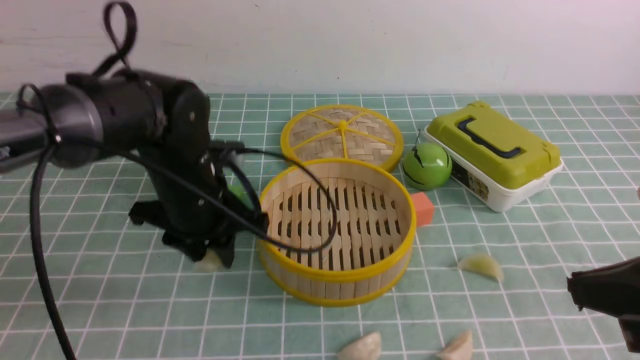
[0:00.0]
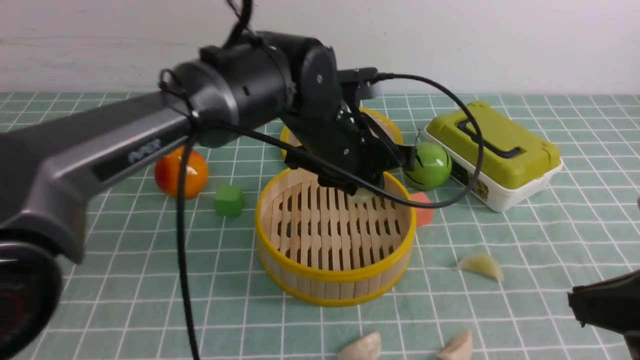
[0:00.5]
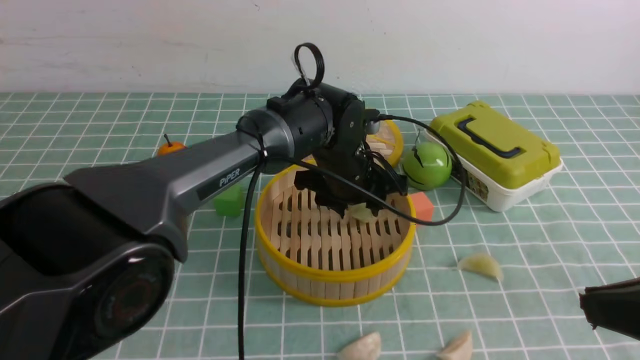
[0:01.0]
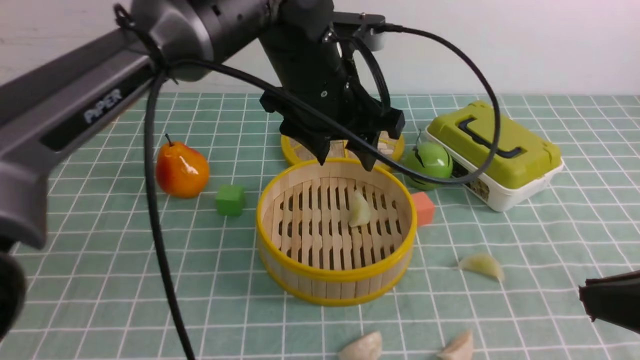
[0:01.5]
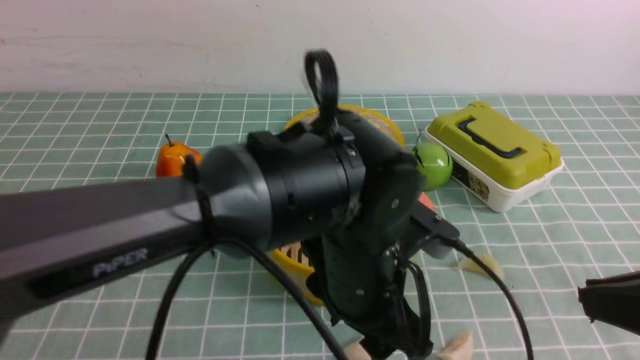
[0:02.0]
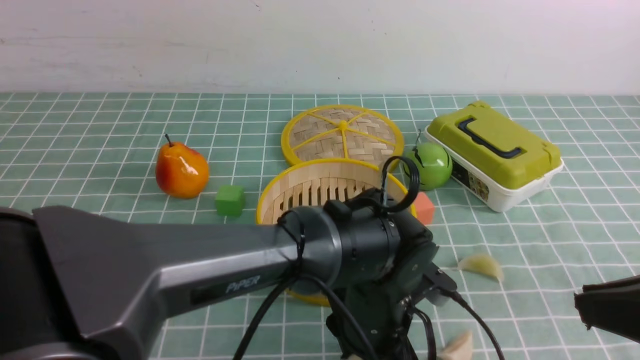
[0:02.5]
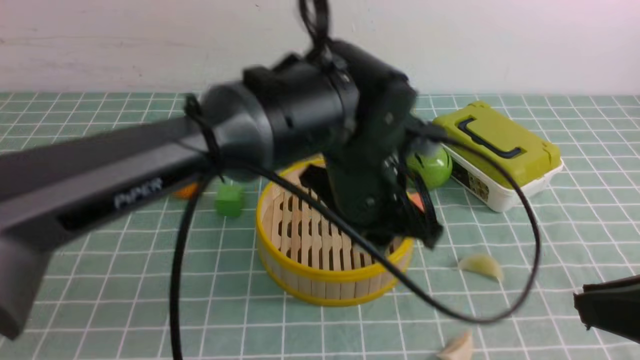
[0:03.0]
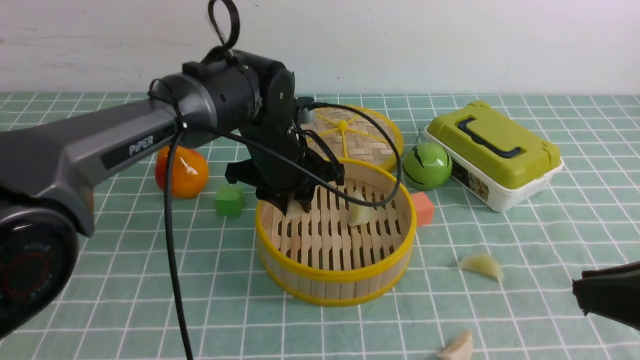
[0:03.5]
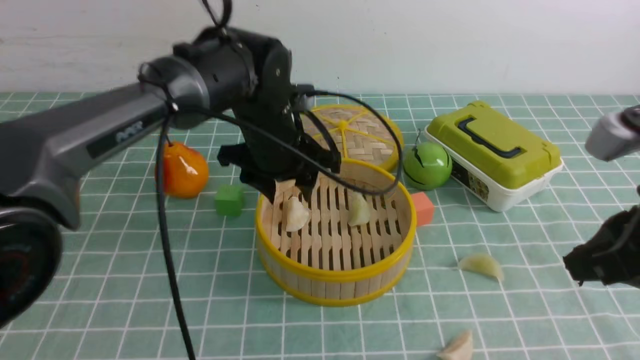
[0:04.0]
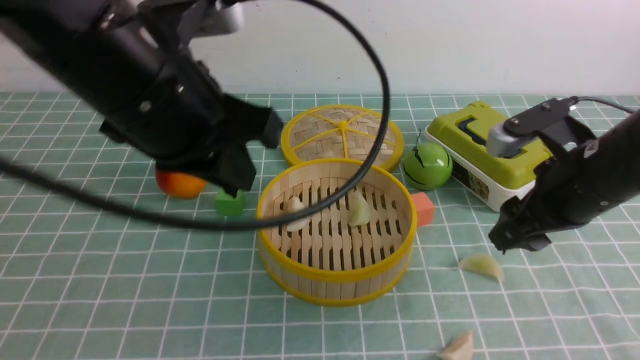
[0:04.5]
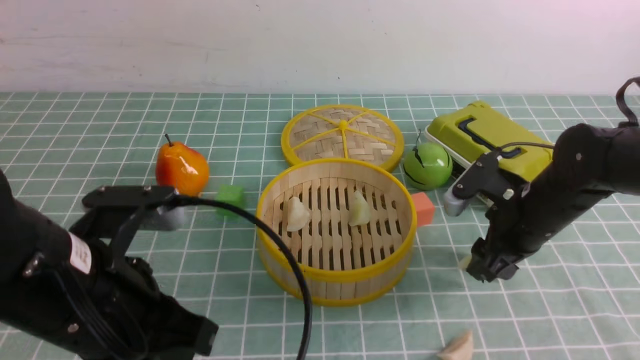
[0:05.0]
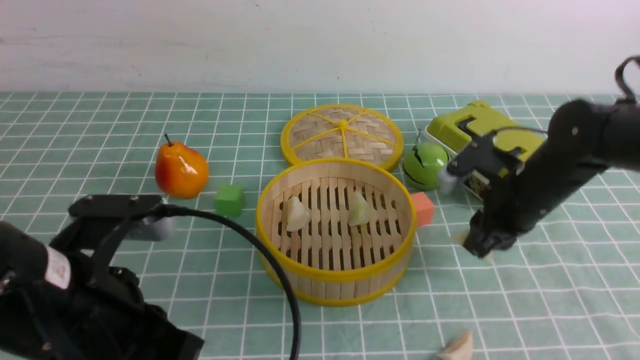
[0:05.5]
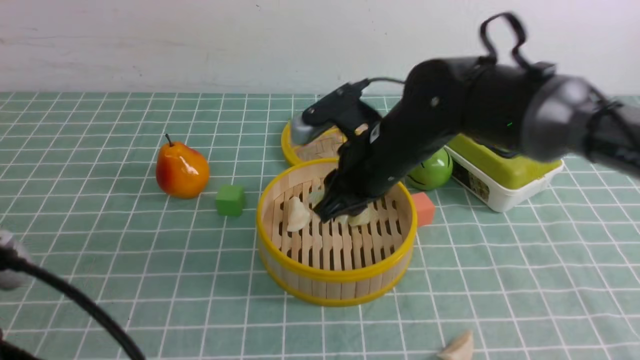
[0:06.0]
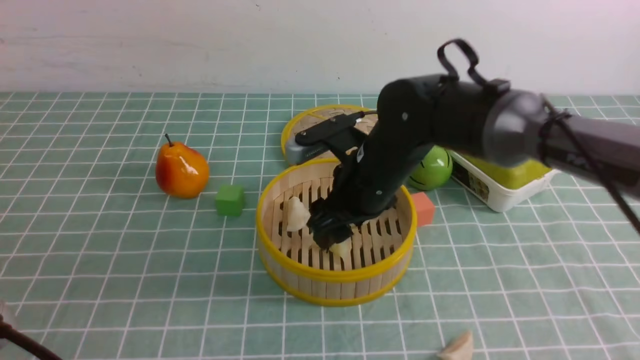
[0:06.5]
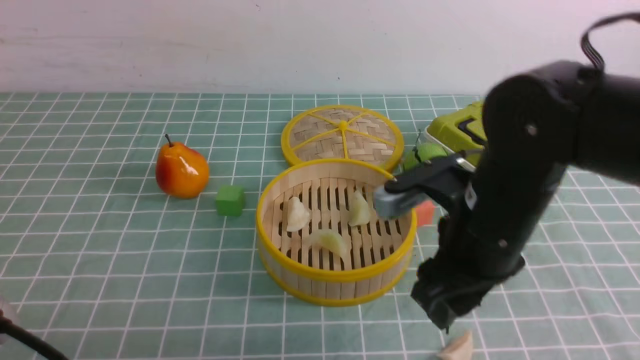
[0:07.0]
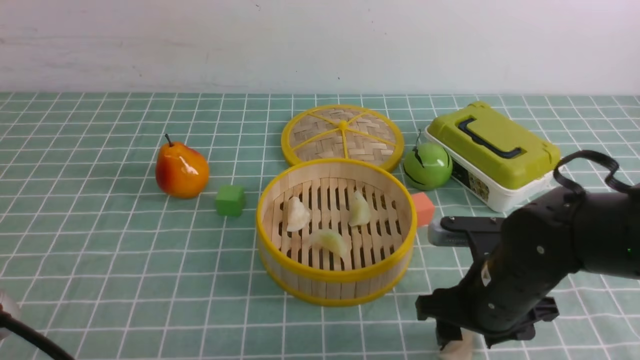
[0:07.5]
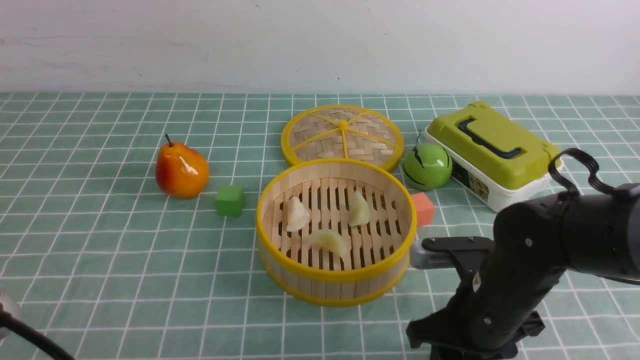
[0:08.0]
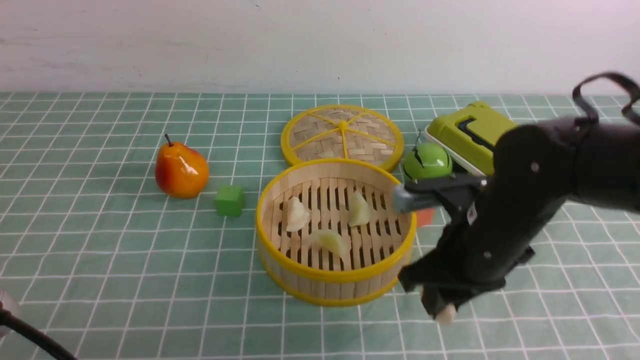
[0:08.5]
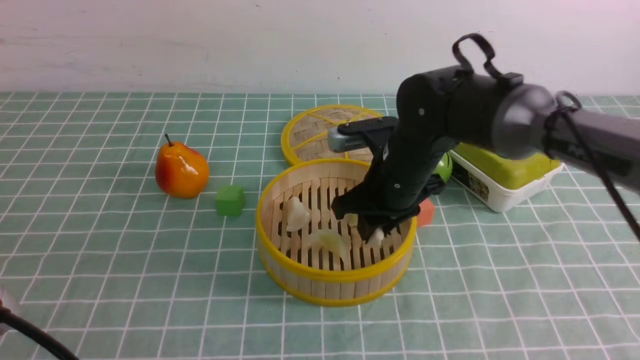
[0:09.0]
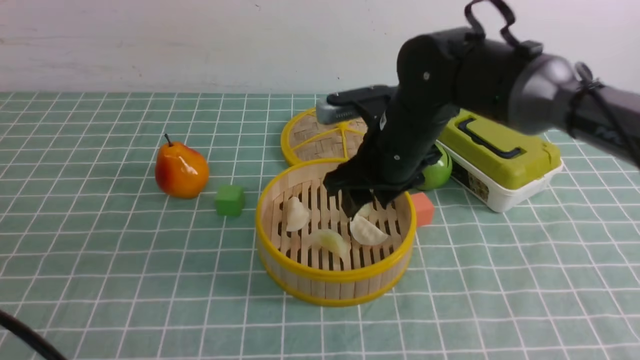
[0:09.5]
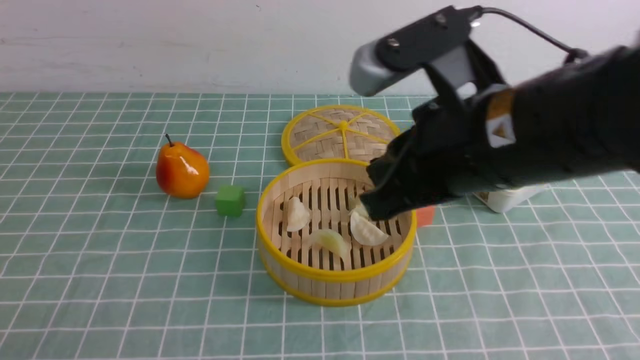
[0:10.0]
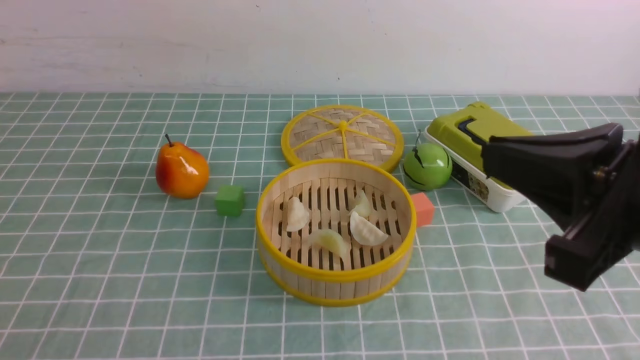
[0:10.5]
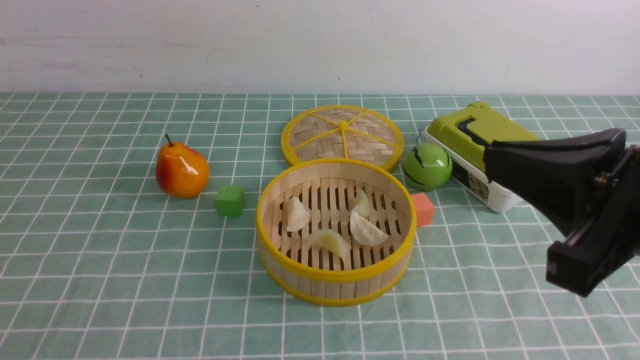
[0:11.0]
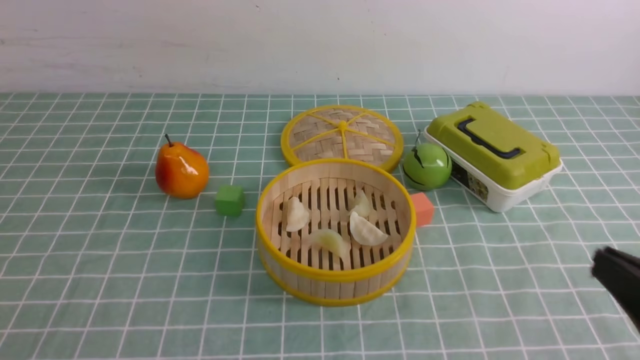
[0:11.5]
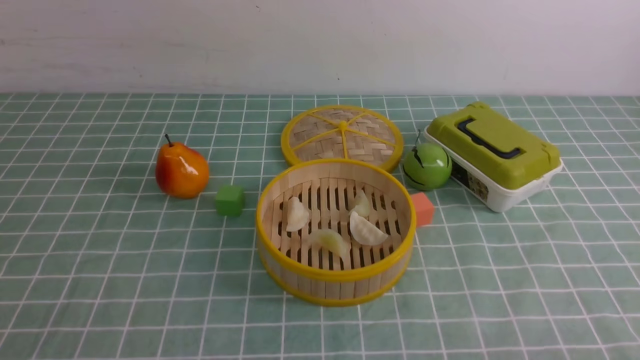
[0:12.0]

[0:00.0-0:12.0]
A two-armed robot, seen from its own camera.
Task of the whole recording: put the dumplings into the steamer on the table with the blue tablecloth.
Step, 0:00.5 to 0:01.0: use the left arm to put the dumpling into the steamer.
Step, 0:01.5 to 0:03.0: use the left arm to grab a dumpling.
Step, 0:03.5 to 0:04.0: use the left arm to put the dumpling into the steamer.
Step, 0:04.5 to 0:05.5: use the right arm to grab a dumpling.
Step, 0:06.0 to 0:06.5: use the right arm to put the dumpling into the steamer.
Step, 0:07.0 to 0:08.0: use the right arm to grab a dumpling.
Step, 0:09.0 to 0:09.5: use the right arm to put the dumpling into the steamer.
0:00.0 to 0:02.0: The left gripper heads to the right and backward, covering about 20 cm, and opens up.
0:02.0 to 0:04.0: The right gripper goes roughly 10 cm forward. Meanwhile the left gripper travels forward and to the left by about 20 cm.
0:04.0 to 0:06.0: The left gripper heads backward and to the left, covering roughly 35 cm, and closes its fingers, while the right gripper goes roughly 25 cm to the left, forward and downward, and opens and closes again.
0:06.0 to 0:08.0: The right gripper goes about 15 cm backward, downward and to the right.
0:08.0 to 0:10.0: The right gripper travels upward by some 20 cm, and closes; the left gripper shifts approximately 5 cm to the left.
0:10.0 to 0:12.0: The right gripper travels to the right, downward and backward by about 30 cm.

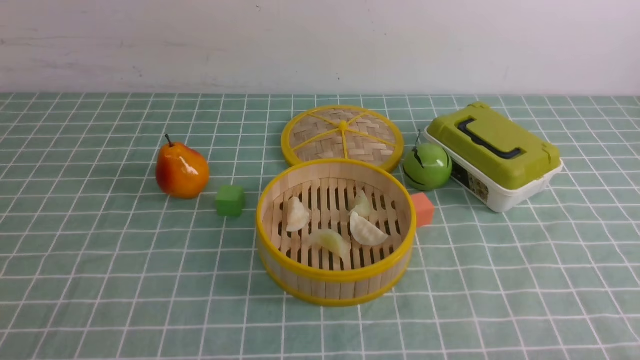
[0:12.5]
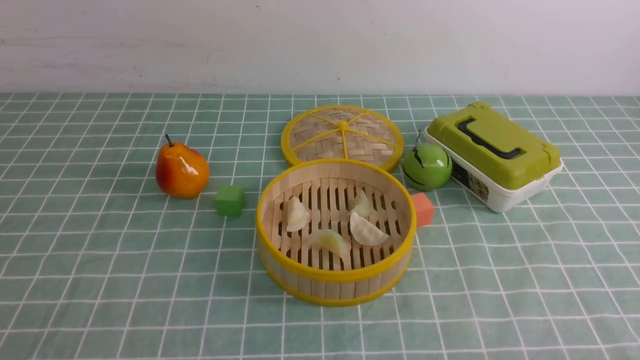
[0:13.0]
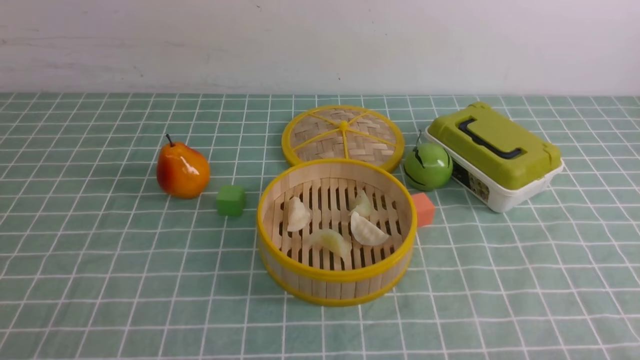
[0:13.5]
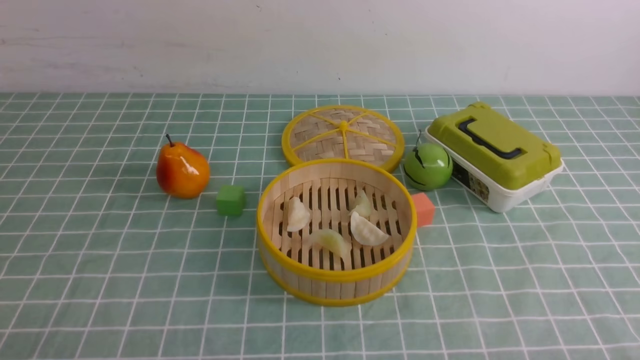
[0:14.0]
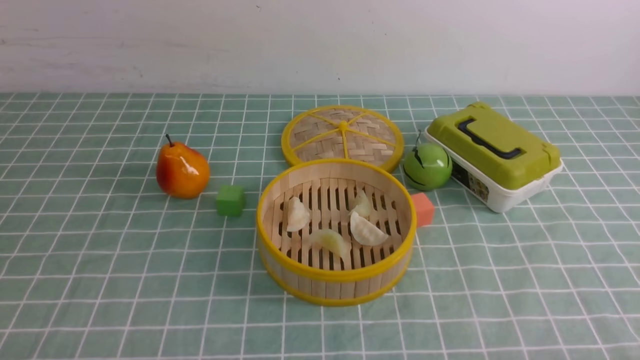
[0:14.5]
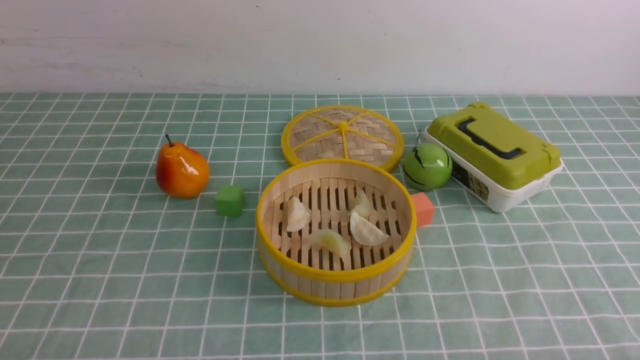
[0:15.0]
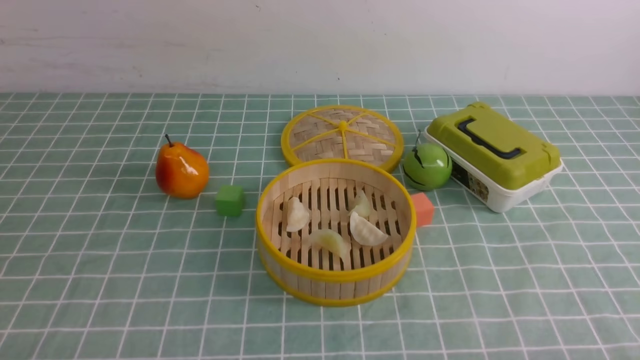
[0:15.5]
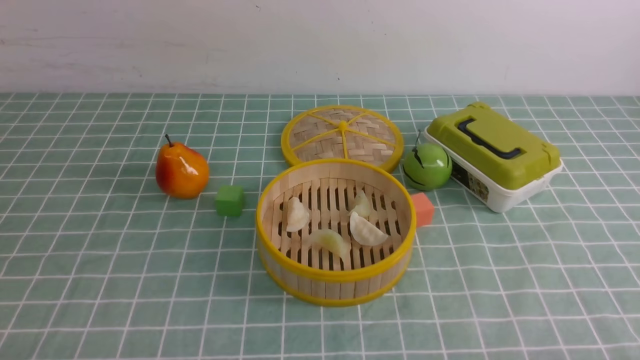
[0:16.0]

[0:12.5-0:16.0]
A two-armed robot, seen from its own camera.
Task of the whole recording: put the dumplings into the steamer on the table with the blue tablecloth.
0:14.5 to 0:16.0: Both grippers stay put.
